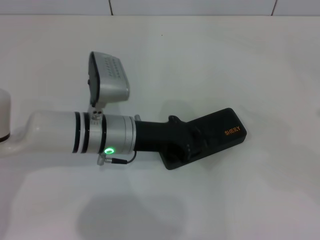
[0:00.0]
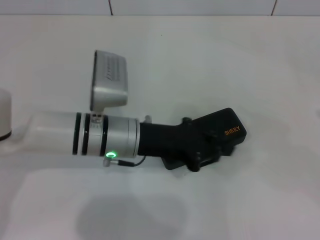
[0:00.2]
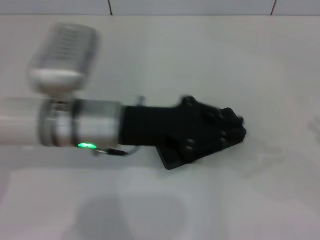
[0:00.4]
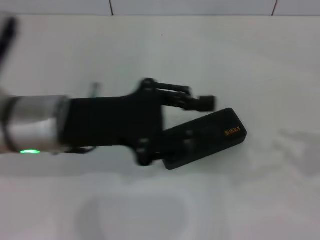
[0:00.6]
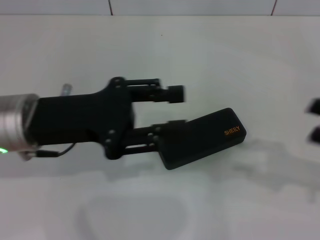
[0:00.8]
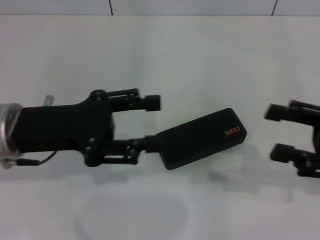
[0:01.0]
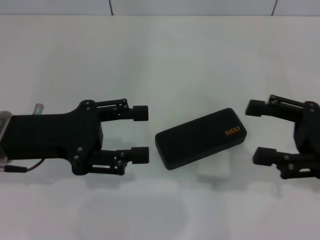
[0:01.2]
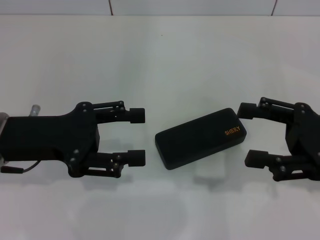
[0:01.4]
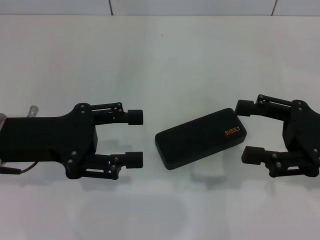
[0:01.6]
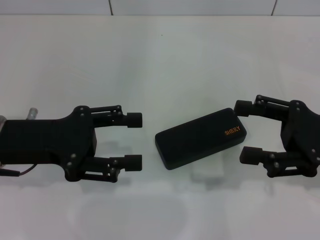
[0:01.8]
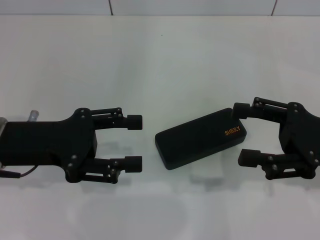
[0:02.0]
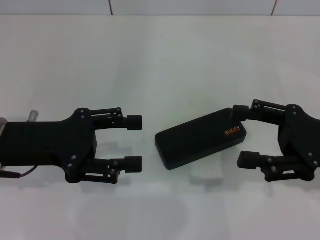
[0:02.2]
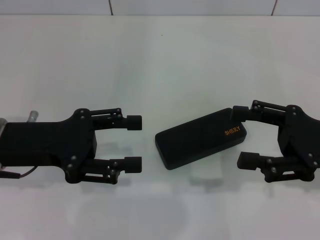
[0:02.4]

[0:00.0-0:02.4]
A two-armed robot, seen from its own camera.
0:00.0 to 0:01.2: The right gripper heads to the left, covering some 15 cm, and opens. Meanwhile the left gripper travels to the left, upward and backward by roughly 15 cm, and opens up.
0:01.2 to 0:02.4: The grippers stay close to where they were, moving slightly.
